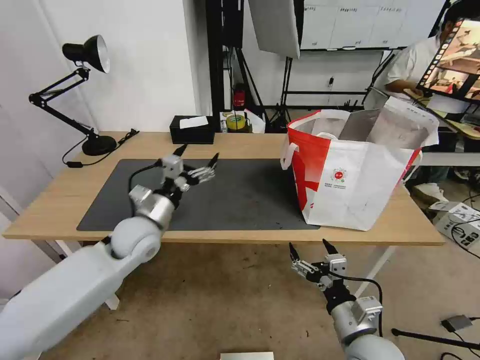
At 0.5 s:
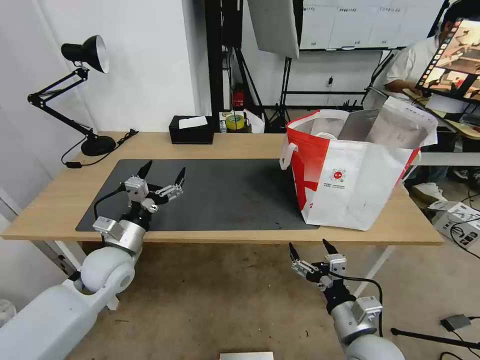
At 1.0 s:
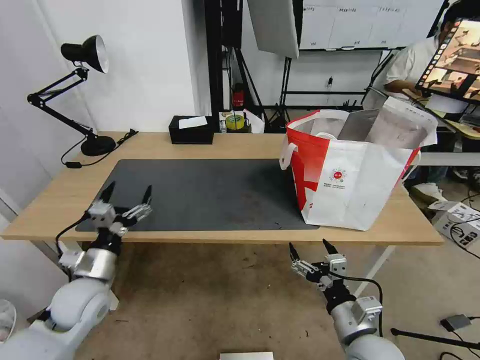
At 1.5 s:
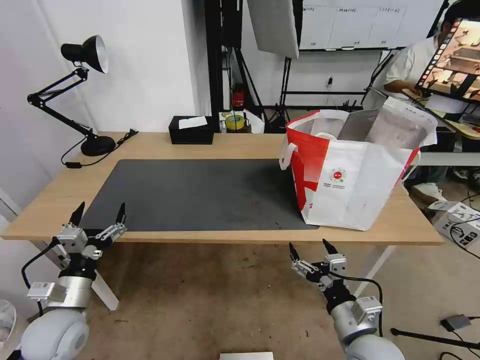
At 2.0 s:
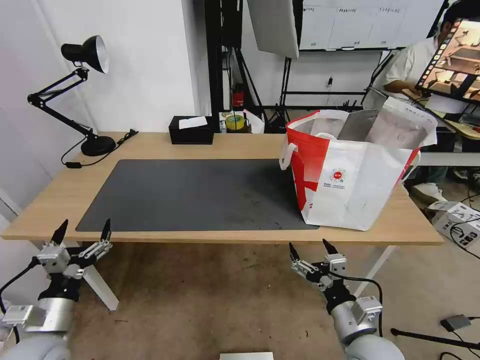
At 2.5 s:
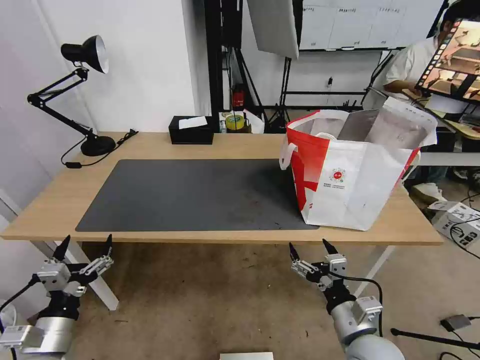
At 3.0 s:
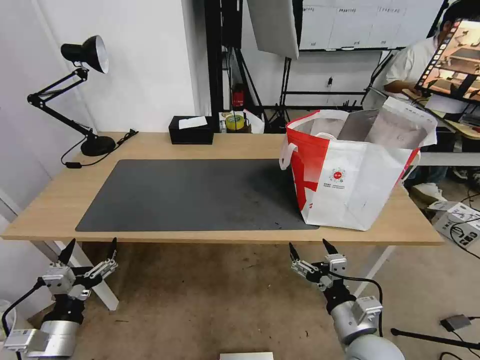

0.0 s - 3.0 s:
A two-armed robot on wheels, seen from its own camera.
Task of the whole recording: Pick up the trash from the table and place it into the takeout bag.
0.0 s - 1.5 s: The left gripper travels backward, to the left and downward by some 20 cm.
1.5 s - 3.0 s: The left gripper moves backward, roughly 10 cm.

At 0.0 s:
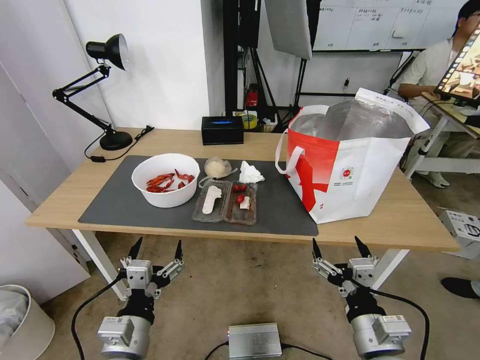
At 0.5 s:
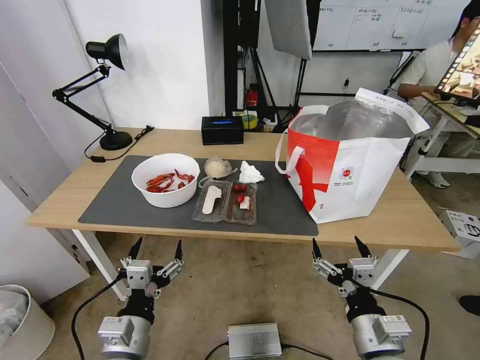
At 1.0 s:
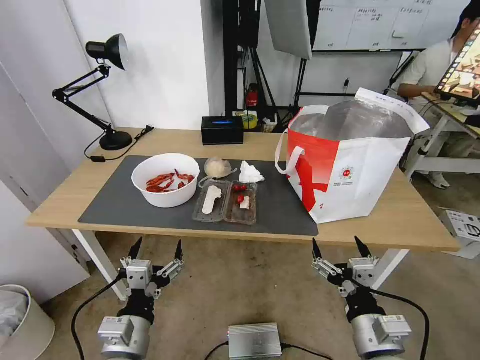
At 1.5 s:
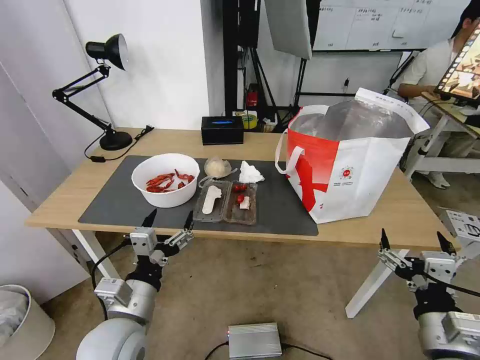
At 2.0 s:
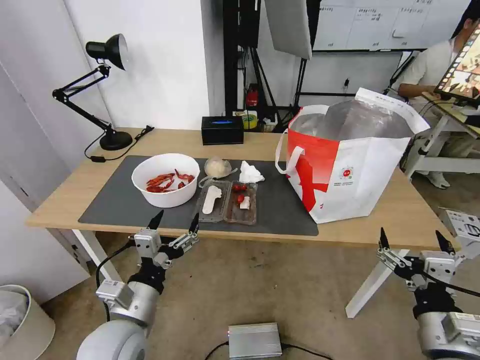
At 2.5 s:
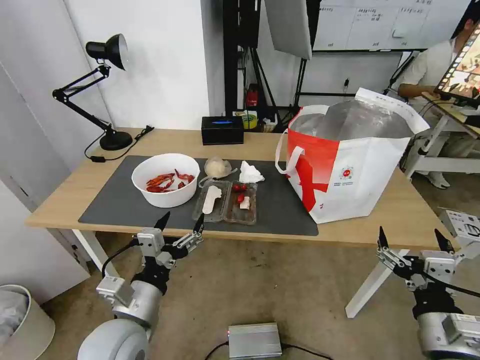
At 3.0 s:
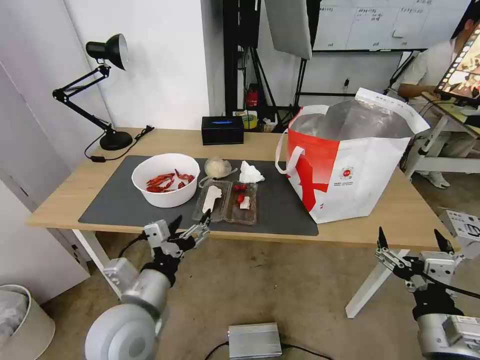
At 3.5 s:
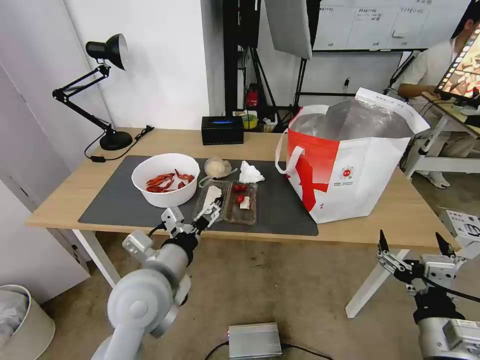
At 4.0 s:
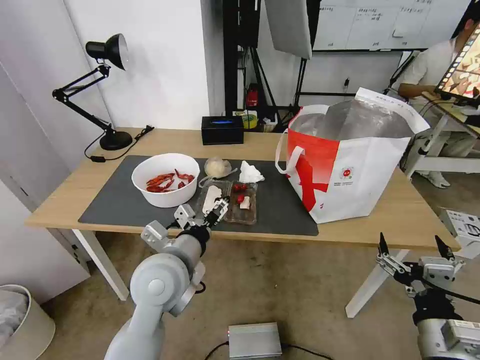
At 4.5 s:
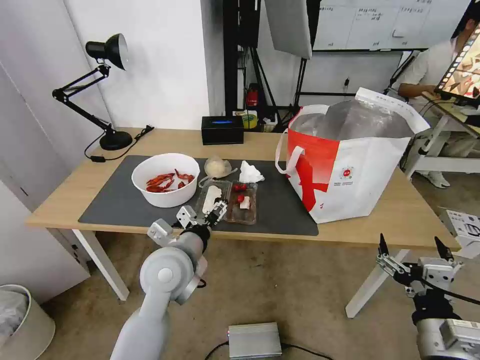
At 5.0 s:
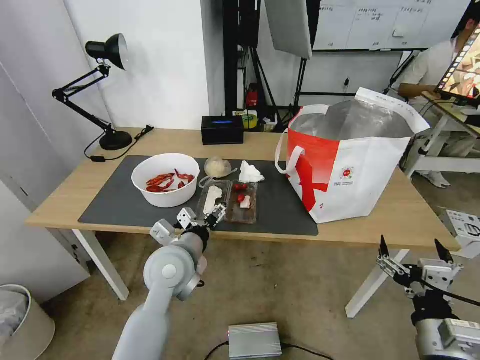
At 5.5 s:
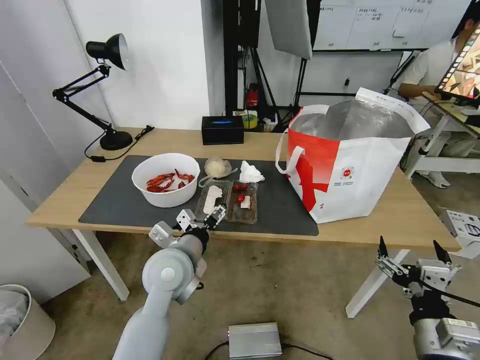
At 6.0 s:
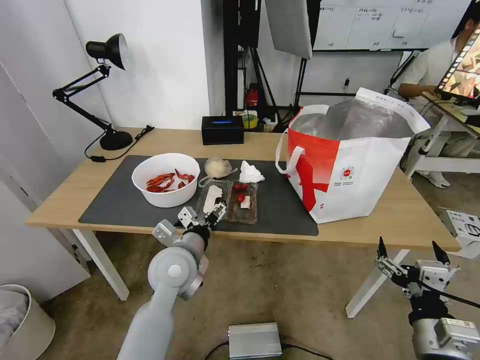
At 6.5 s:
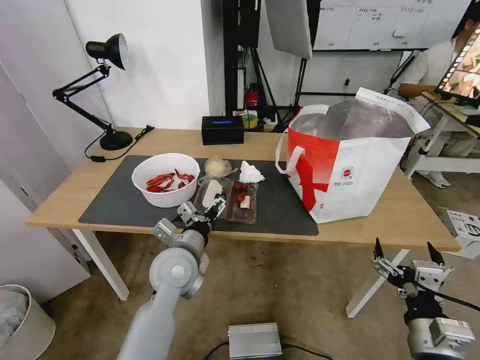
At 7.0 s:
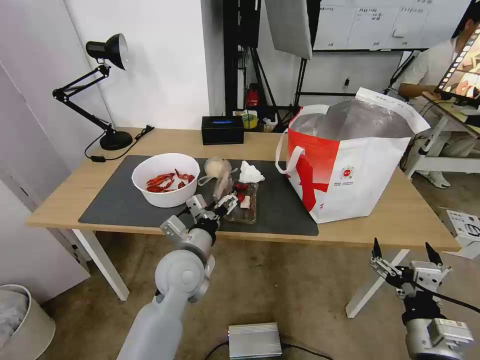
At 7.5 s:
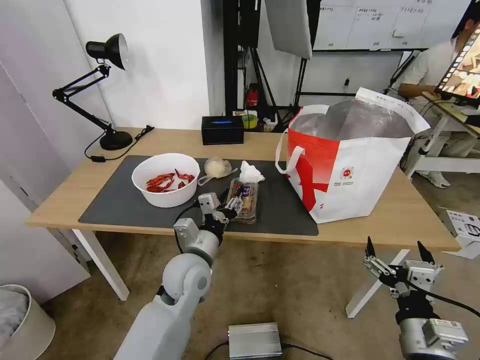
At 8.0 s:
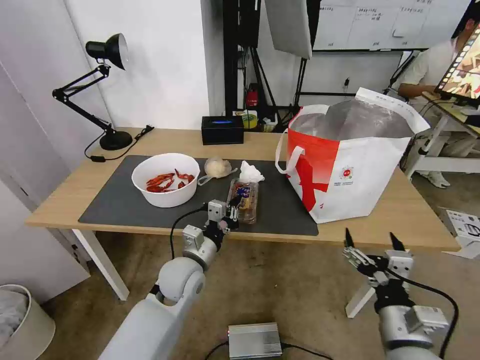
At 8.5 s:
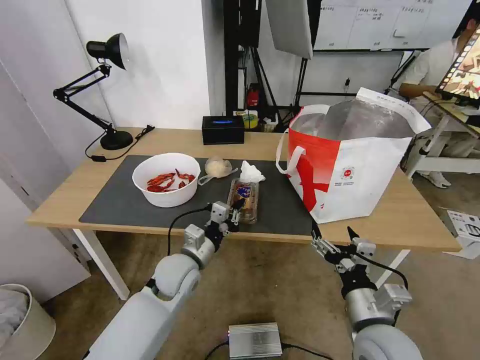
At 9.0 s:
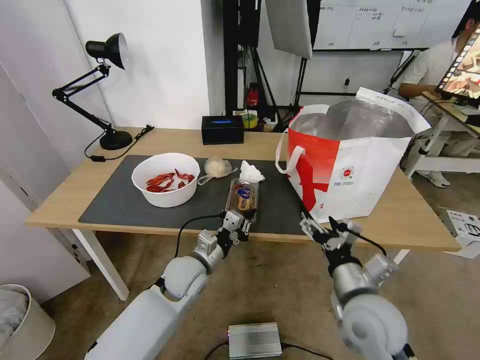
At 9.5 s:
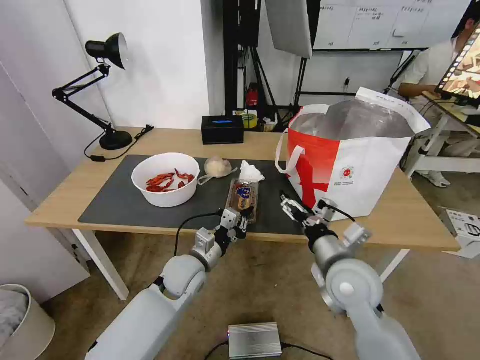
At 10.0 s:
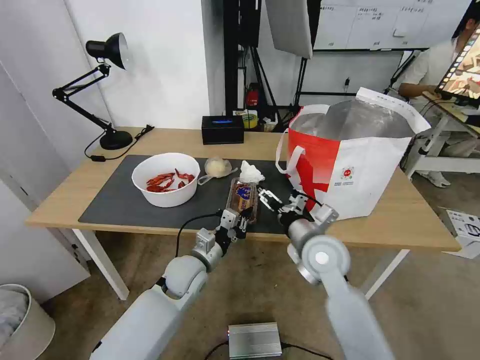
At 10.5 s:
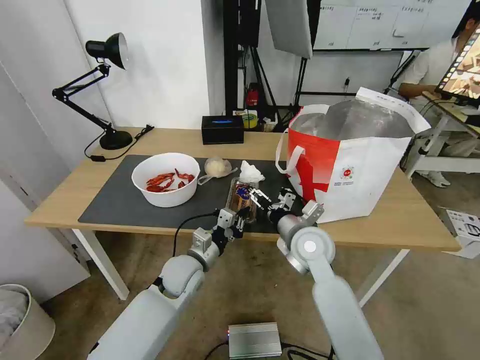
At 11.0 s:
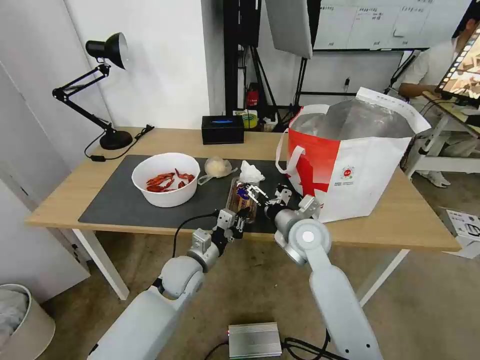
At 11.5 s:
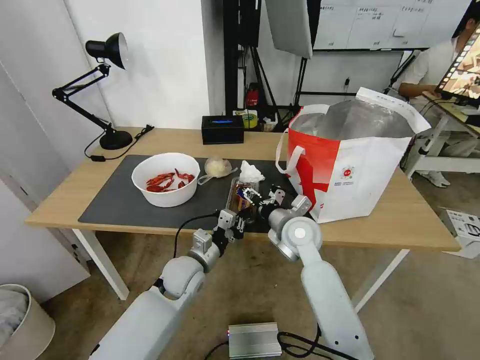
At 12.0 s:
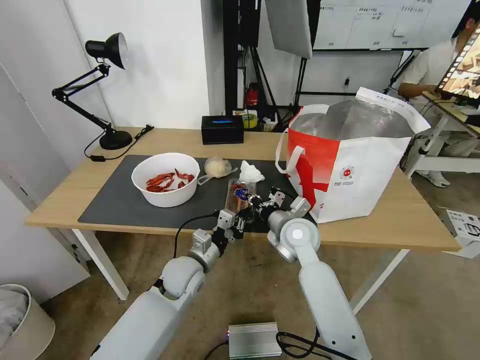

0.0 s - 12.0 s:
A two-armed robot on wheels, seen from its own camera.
Task of the whole recording: Pick up the trash from the table and place it into the takeout bag.
2.0 s - 4.0 s: The left gripper shifts approximately 15 cm forward, to the right and upward.
4.0 s - 6.0 s: The left gripper goes some 5 cm downward.
6.0 s - 8.0 s: The left gripper is displaced downward by about 5 cm, and closes its fingers.
8.0 s - 10.0 s: The right gripper heads forward and to the left, covering roughly 25 cm.
10.0 s - 12.0 s: The right gripper shifts roughly 5 cm forward, and closes its fingers.

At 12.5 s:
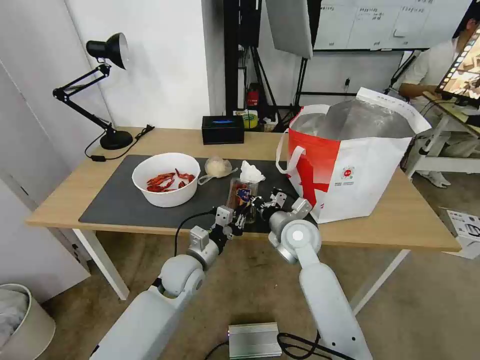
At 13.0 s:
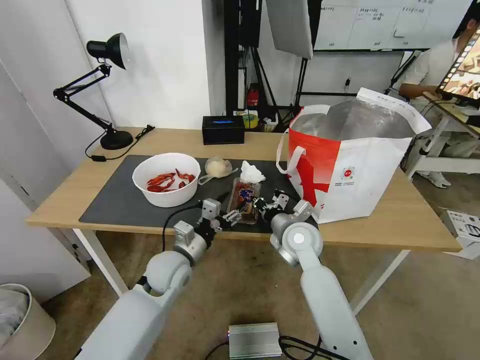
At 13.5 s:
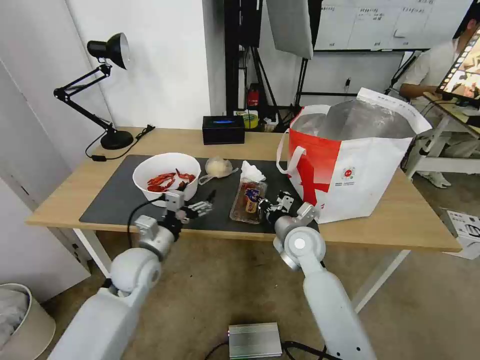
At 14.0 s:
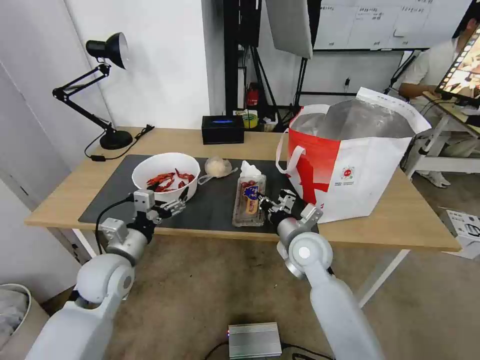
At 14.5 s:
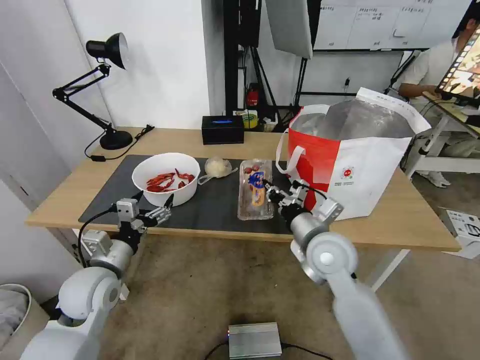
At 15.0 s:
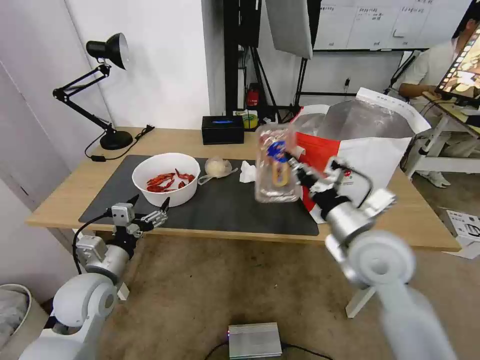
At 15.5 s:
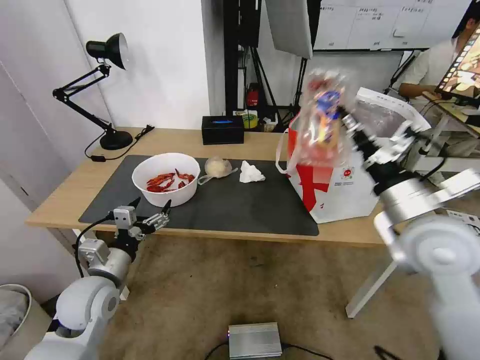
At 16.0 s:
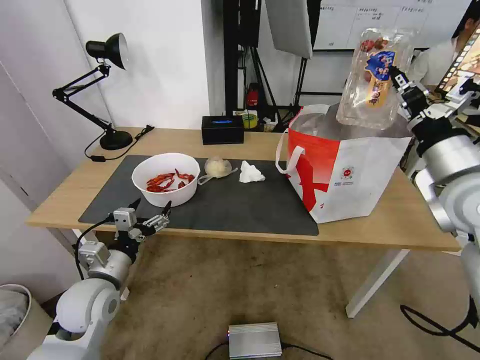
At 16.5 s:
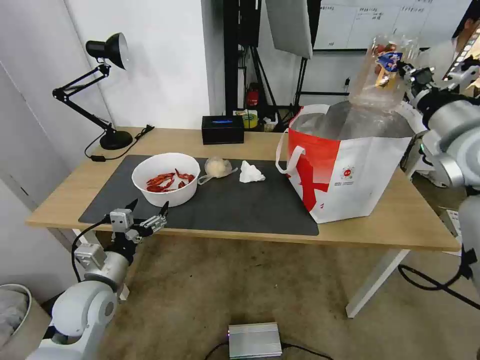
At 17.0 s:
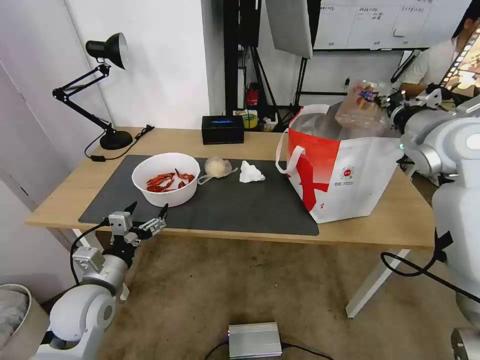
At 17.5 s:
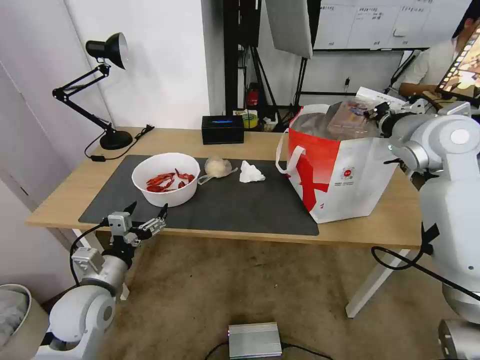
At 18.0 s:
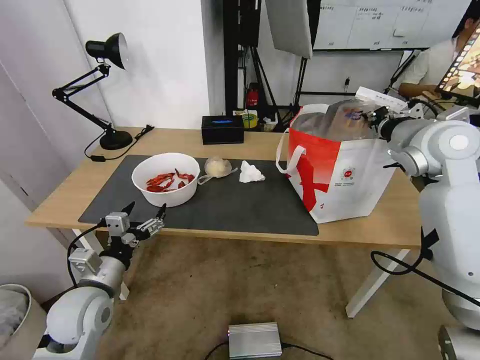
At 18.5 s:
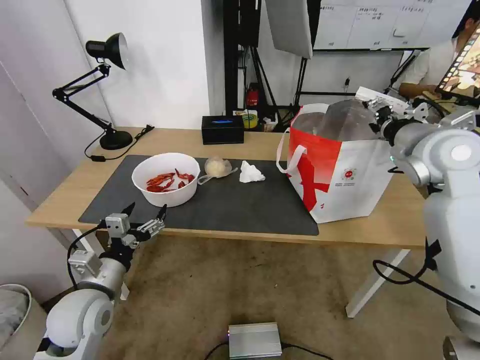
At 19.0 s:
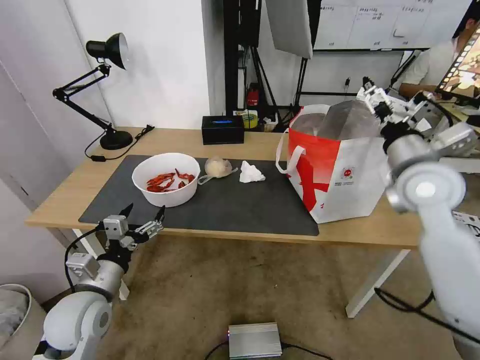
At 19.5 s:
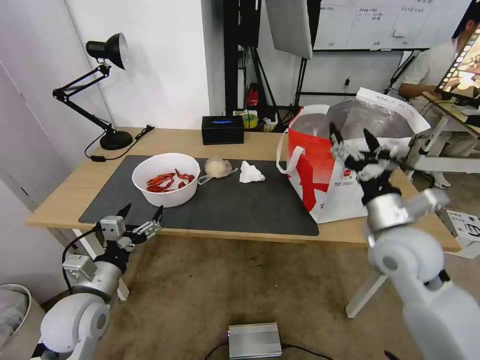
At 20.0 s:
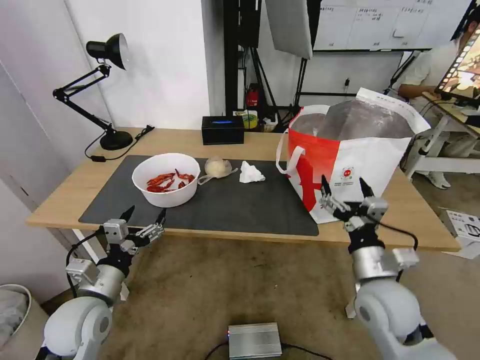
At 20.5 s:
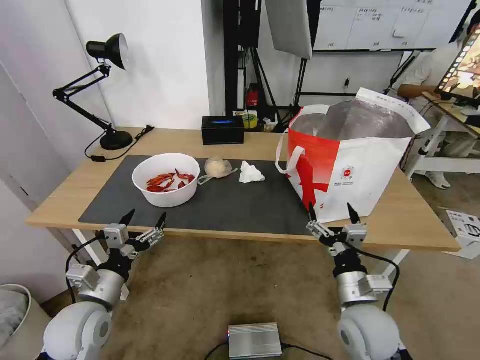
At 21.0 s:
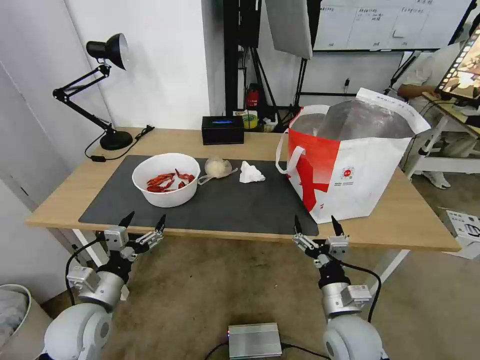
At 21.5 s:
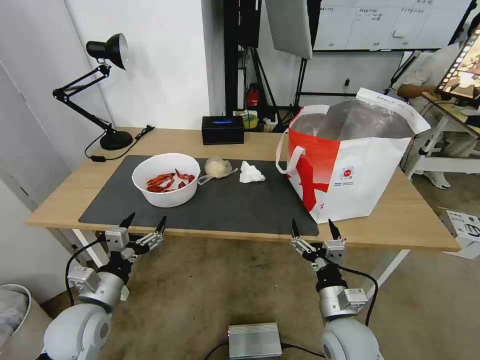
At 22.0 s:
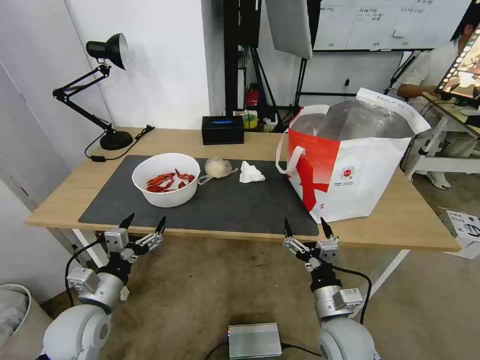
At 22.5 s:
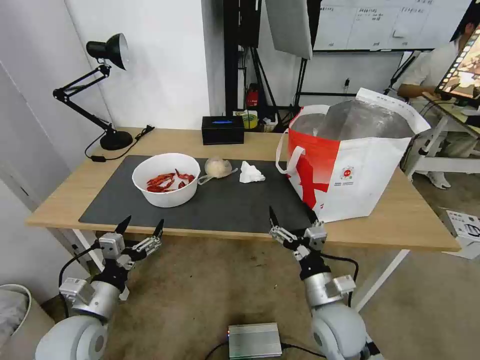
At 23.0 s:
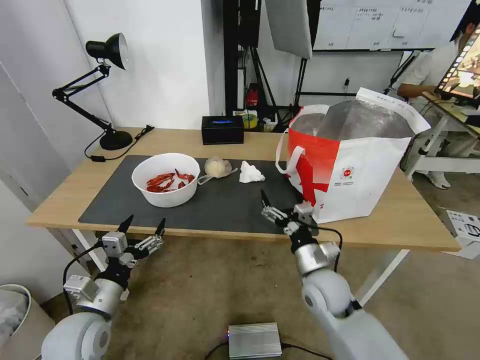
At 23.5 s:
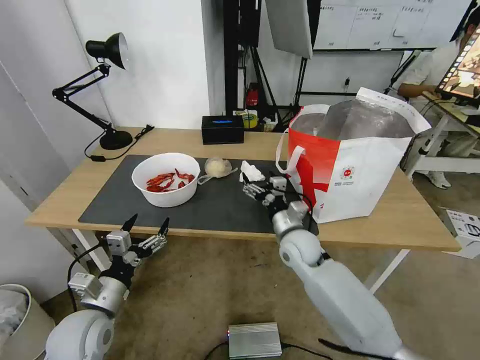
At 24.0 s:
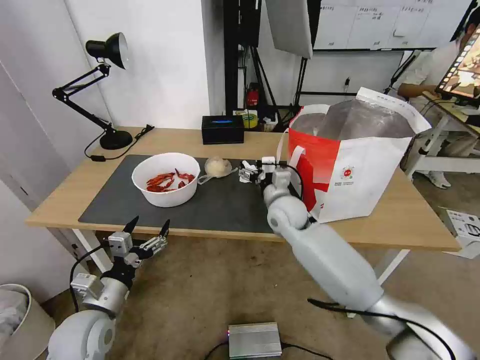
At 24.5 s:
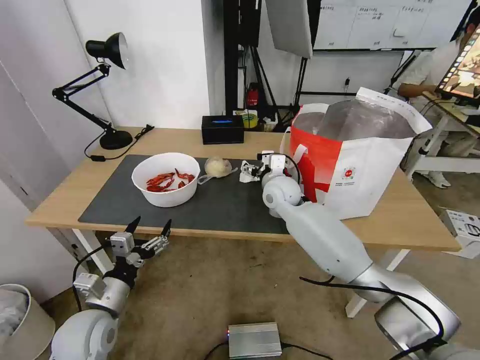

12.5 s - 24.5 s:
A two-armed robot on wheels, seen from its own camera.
Task of the whole recording: Pick up the trash from the table and place it into the takeout bag.
12.5 s - 14.5 s: The left gripper is displaced to the left, upward and backward by some 20 cm, and opens up; the right gripper heads backward, covering some 5 cm.
14.5 s - 16.5 s: The right gripper shifts about 30 cm upward and to the right.
16.5 s - 18.5 s: The right gripper changes place by approximately 5 cm, and opens up.
18.5 s - 20.5 s: The right gripper moves downward, backward and to the left, about 35 cm.
20.5 s - 22.5 s: The right gripper is displaced to the left by roughly 5 cm.
22.5 s - 24.5 s: The right gripper heads forward, covering some 30 cm.
